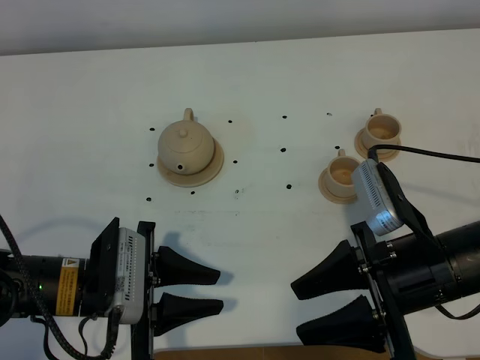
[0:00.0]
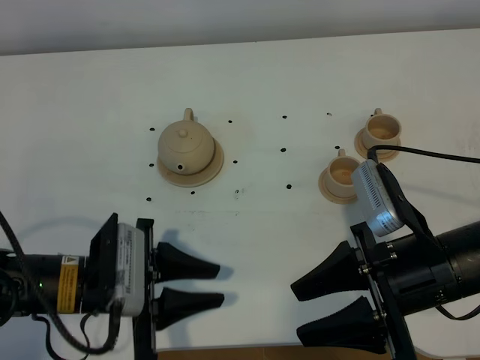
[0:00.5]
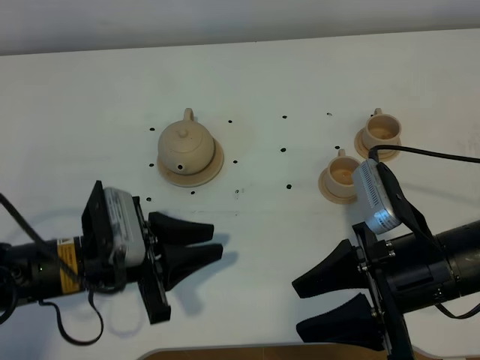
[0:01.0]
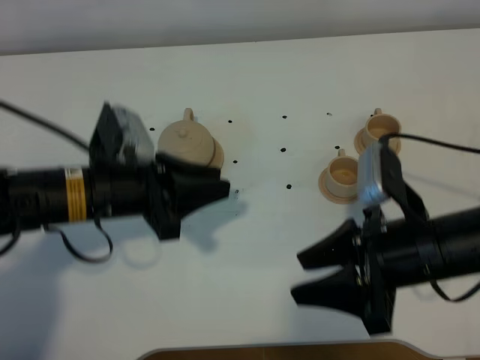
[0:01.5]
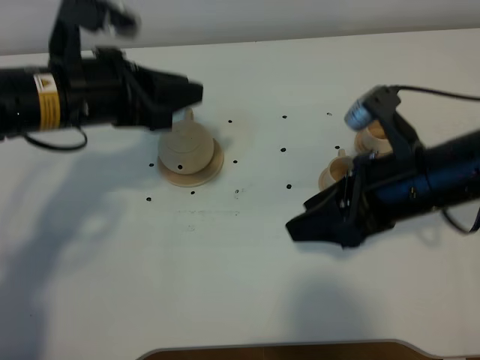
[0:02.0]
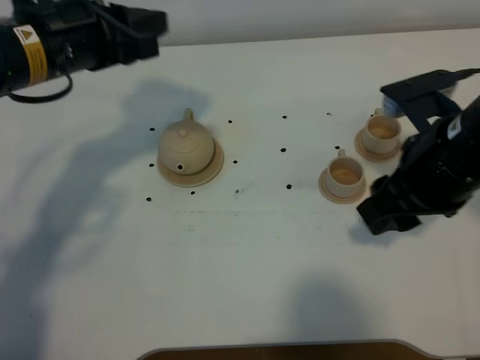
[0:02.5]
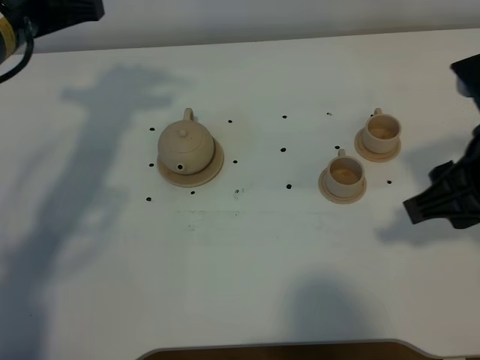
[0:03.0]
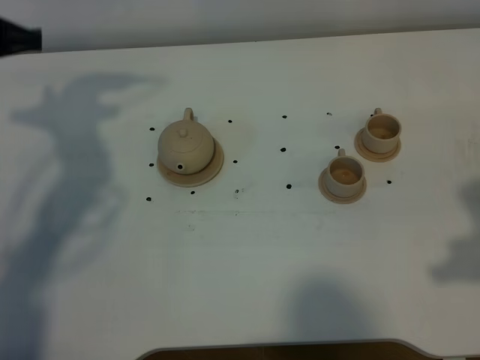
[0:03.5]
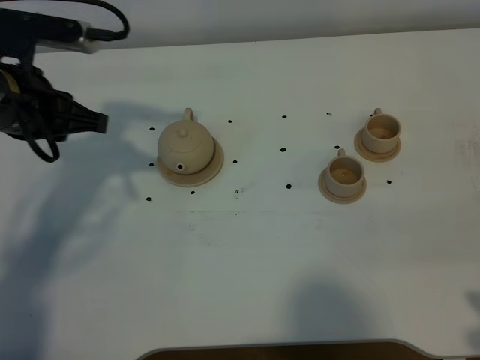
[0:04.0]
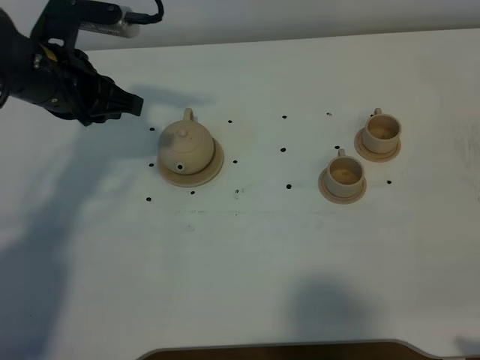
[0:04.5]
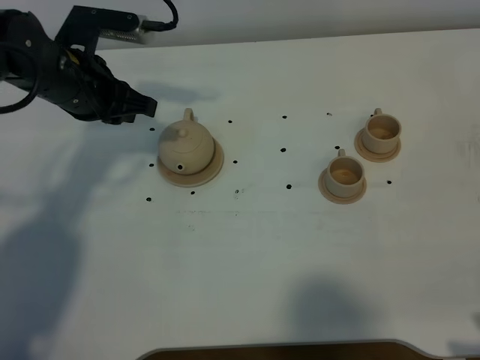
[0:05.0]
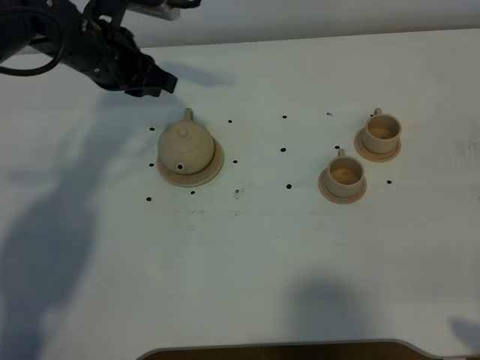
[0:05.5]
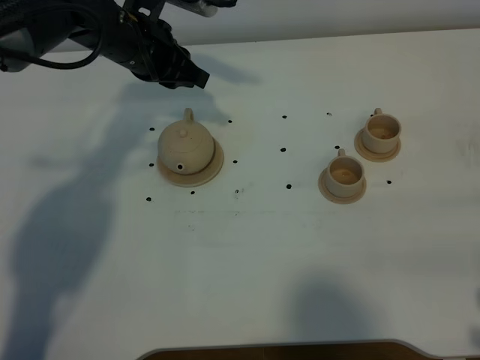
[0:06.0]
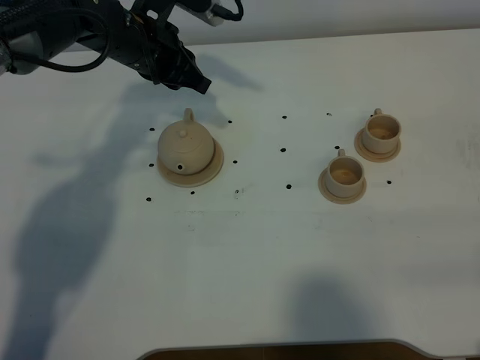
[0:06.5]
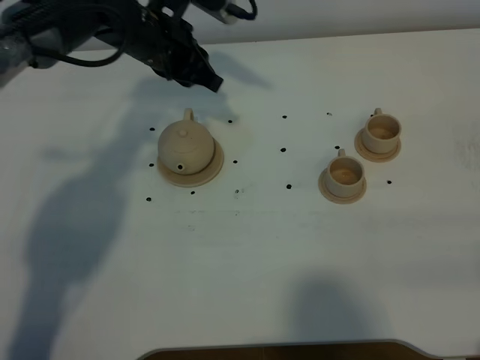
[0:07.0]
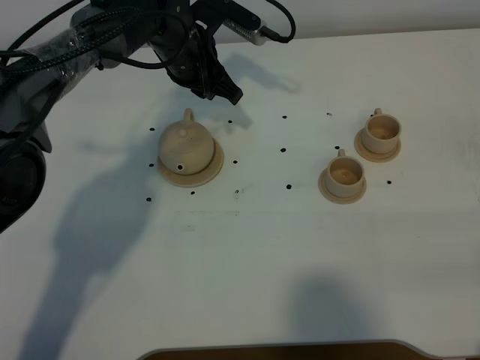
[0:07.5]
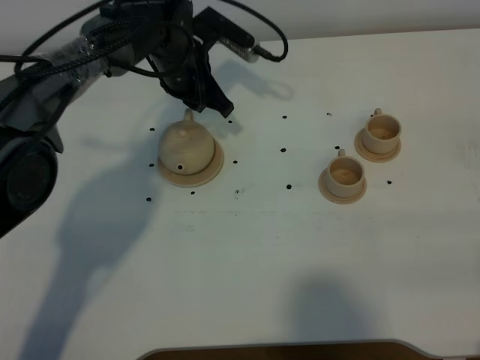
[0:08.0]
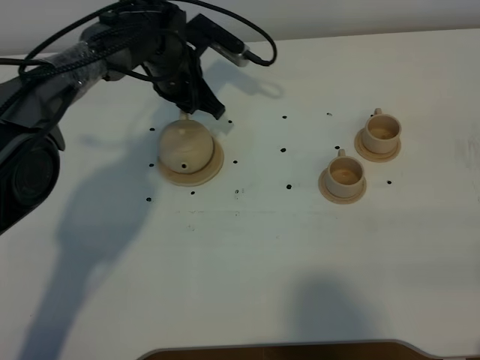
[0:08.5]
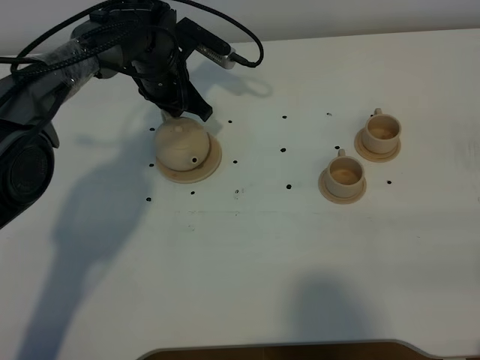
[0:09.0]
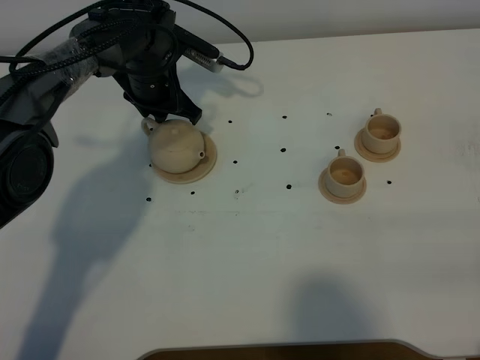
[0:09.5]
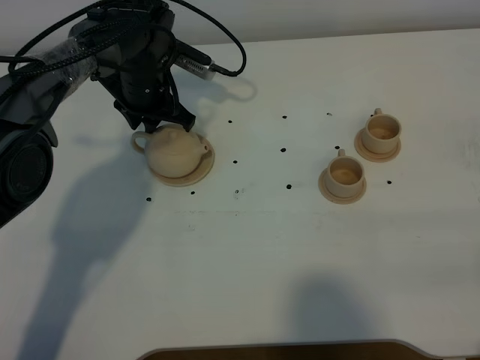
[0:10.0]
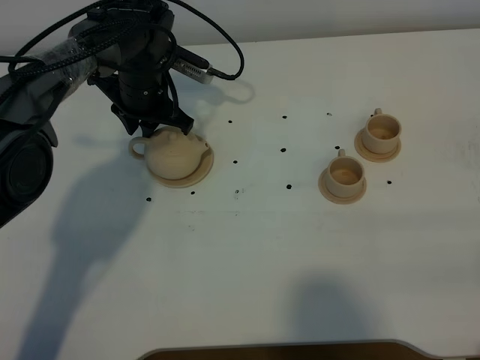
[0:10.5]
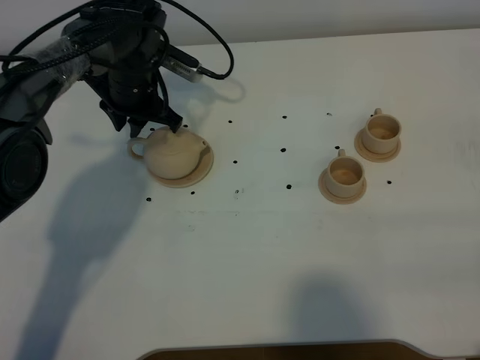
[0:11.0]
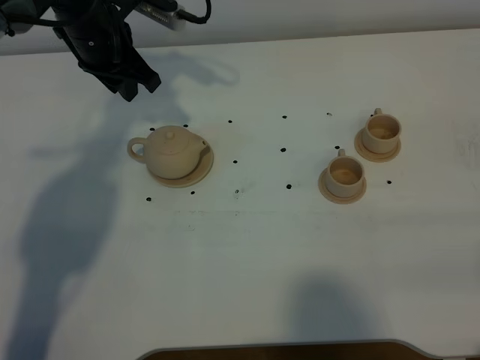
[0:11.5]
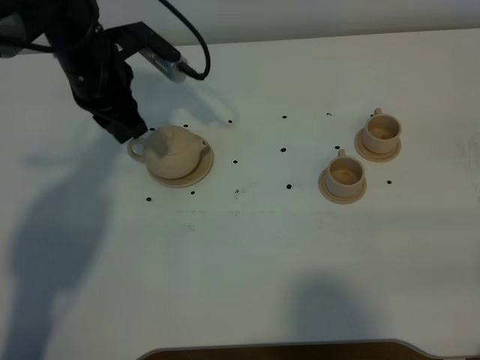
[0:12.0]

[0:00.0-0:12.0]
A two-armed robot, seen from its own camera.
Task of the whole recording: grasp the brown teapot and pour the tea into the two brown teacups one by one, put the brown teapot back in its original place.
0:00.0 to 0:02.0: The right gripper goes approximately 5 cm forward. The left gripper is displaced upward and forward by roughly 20 cm.
0:02.0 to 0:04.0: The right gripper goes approximately 20 cm backward and to the right. Meanwhile the left gripper goes about 5 cm to the left.
0:04.0 to 0:06.0: The left gripper shifts roughly 15 cm forward and to the right.
0:06.0 to 0:08.0: The left gripper shifts some 10 cm downward and to the right.
0:08.0 to 0:10.0: The left gripper shifts by some 5 cm.
0:10.0 to 0:12.0: The left gripper heads upward and backward, covering about 10 cm.

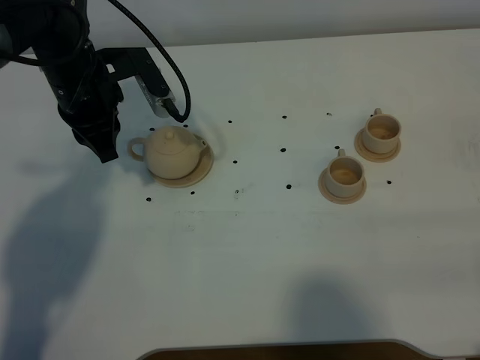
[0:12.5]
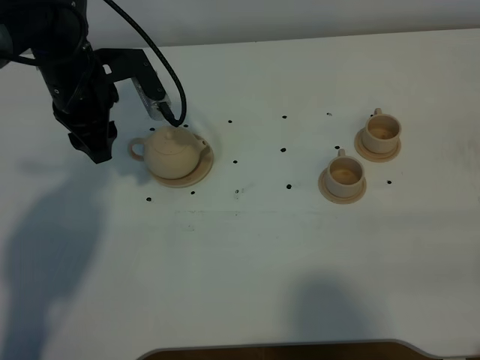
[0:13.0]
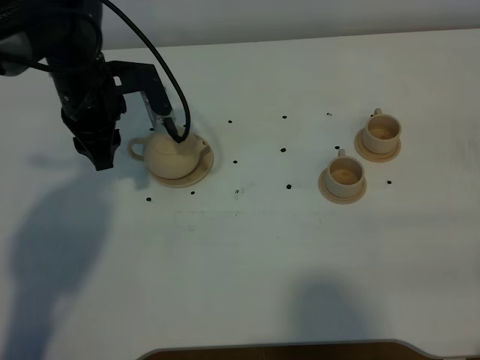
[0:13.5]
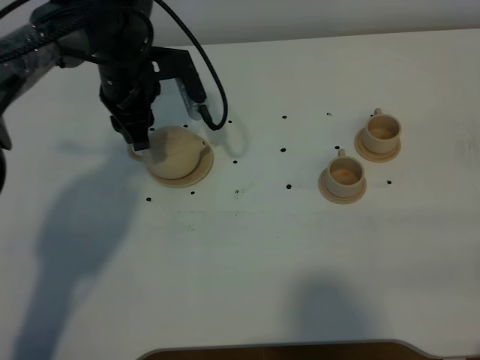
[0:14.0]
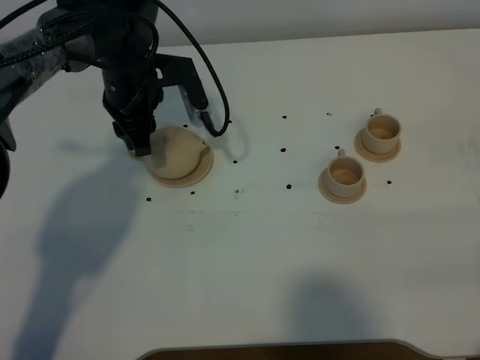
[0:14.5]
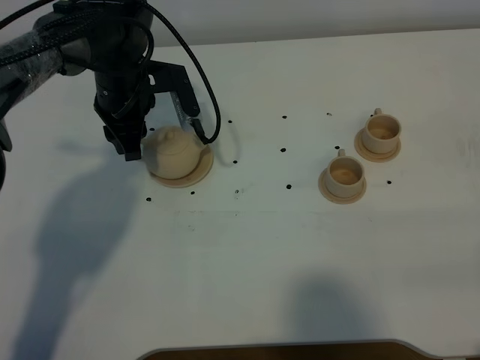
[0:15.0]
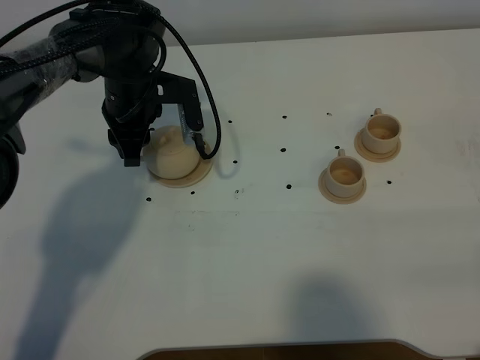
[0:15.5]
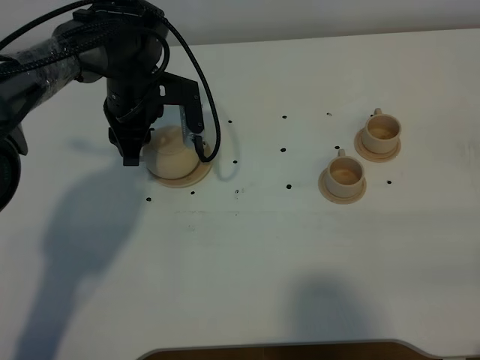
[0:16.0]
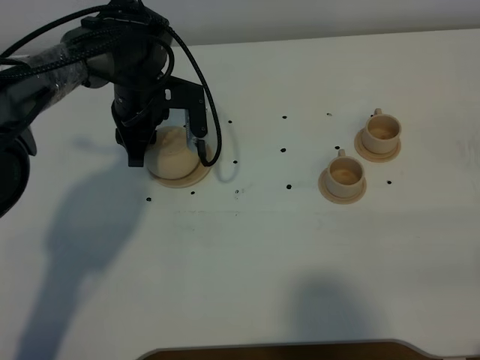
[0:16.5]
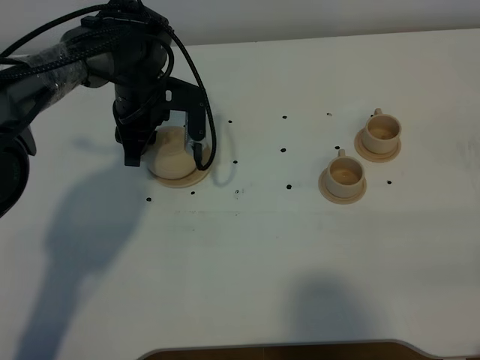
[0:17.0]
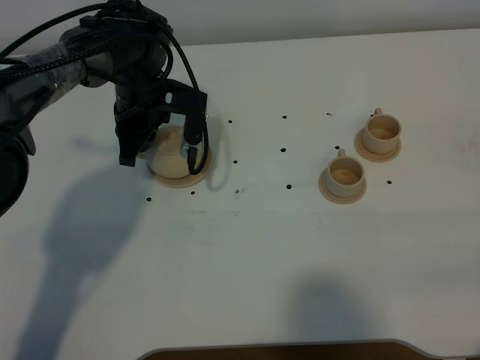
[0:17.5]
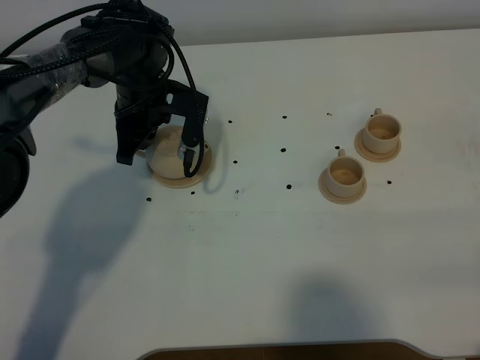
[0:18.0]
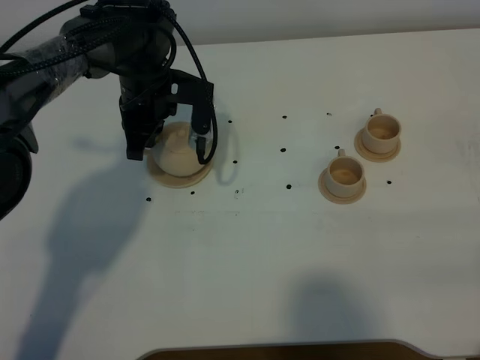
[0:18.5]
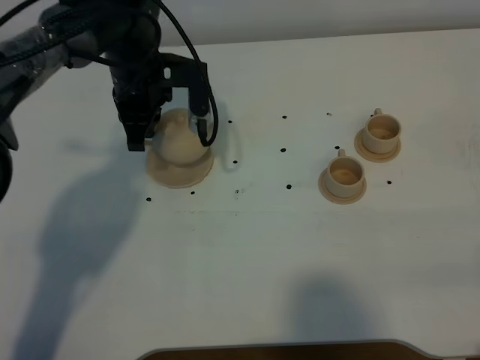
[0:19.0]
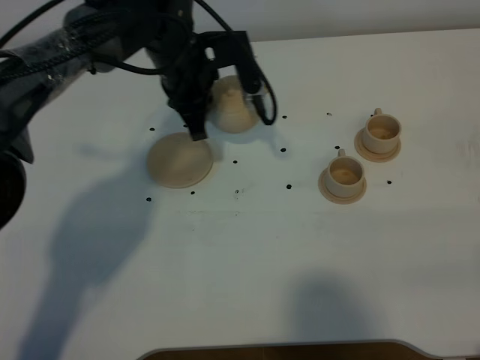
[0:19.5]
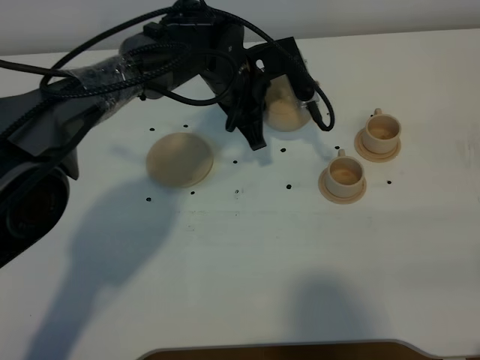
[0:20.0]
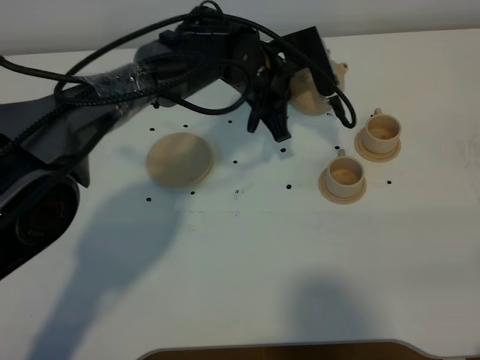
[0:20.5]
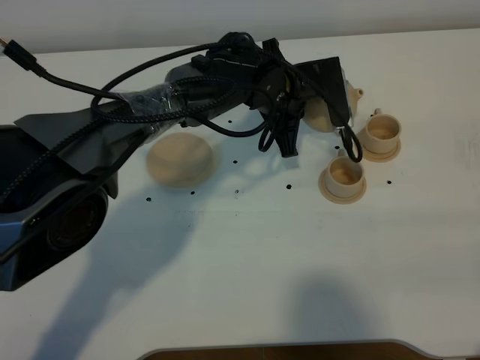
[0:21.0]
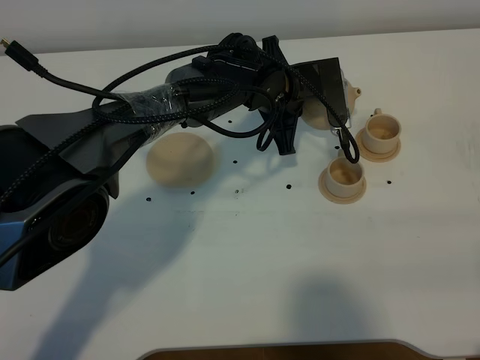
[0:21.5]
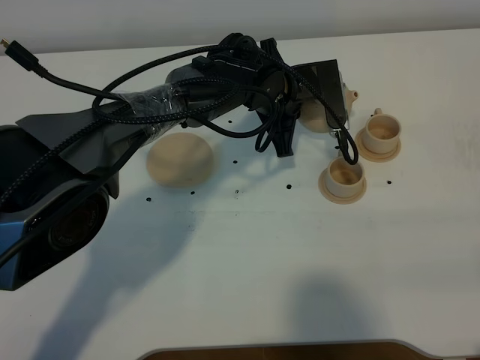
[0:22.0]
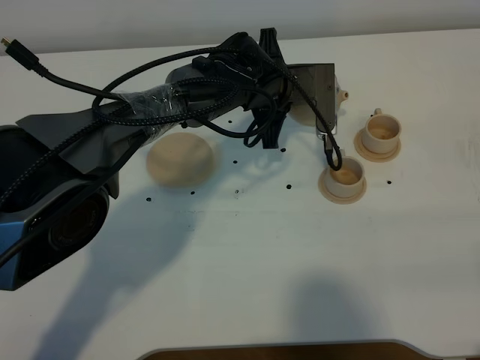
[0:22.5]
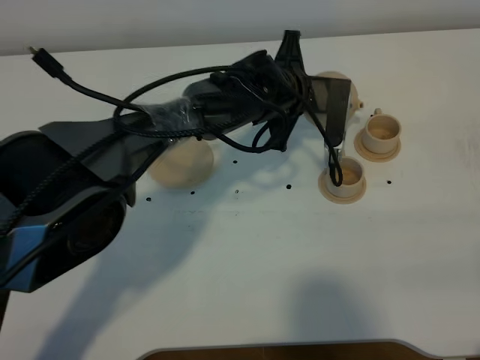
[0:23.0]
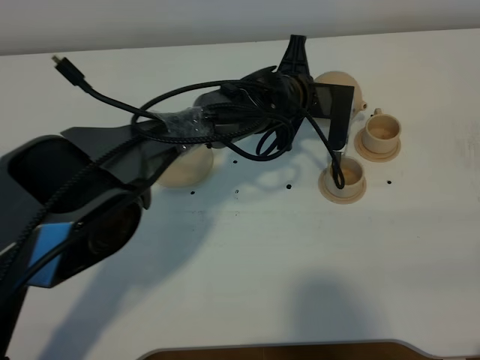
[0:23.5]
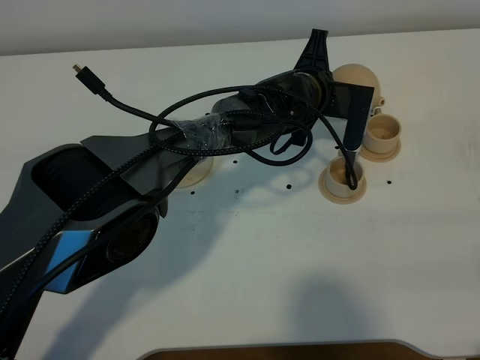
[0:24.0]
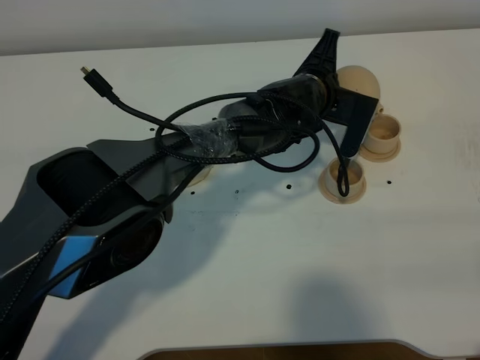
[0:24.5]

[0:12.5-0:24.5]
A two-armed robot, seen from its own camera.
Task of the whole recording: grasp the brown teapot and pour the tea into the two brown teacups one by one, put the brown teapot back in its original place.
Step, 0:12.5 to 0:18.5: Pick up the teapot with the left gripper.
0:12.5 to 0:14.5: The left gripper changes place by approximately 5 cm, and opens up.
0:14.5 to 0:16.5: There are only small adjustments of the grippers.
0:16.5 to 0:18.5: The left gripper closes its fingers.
0:18.5 to 0:20.5: The left gripper goes some 15 cm to the right.
0:22.5 to 0:24.5: The left gripper goes about 5 cm to the right.

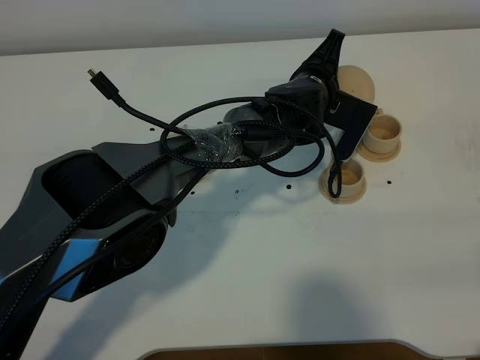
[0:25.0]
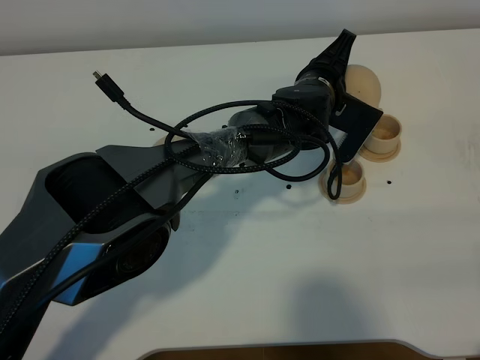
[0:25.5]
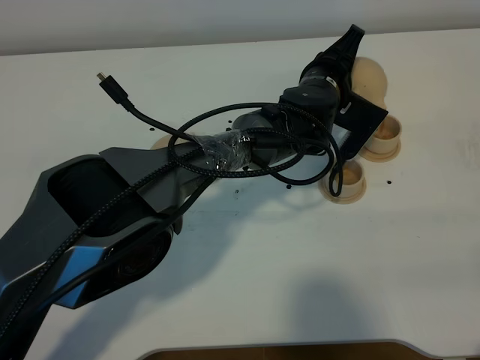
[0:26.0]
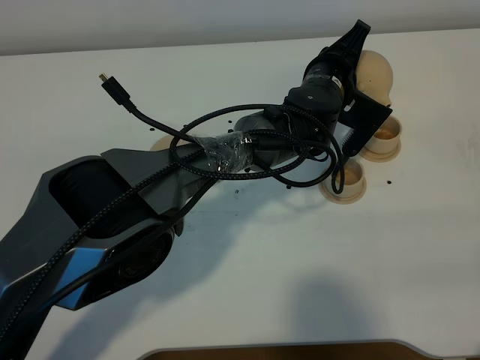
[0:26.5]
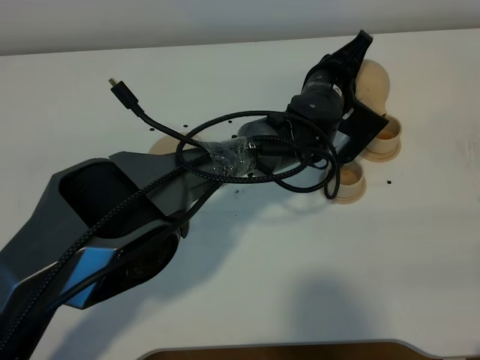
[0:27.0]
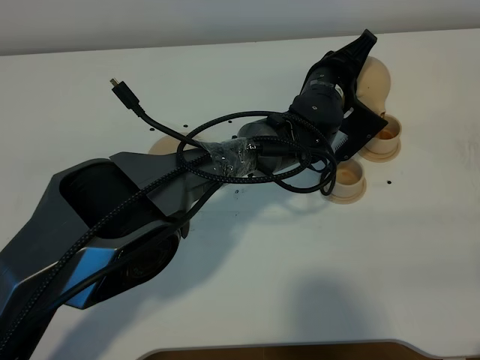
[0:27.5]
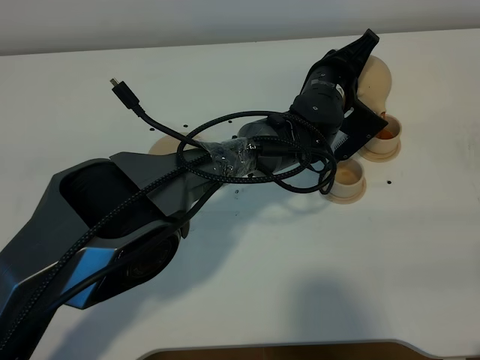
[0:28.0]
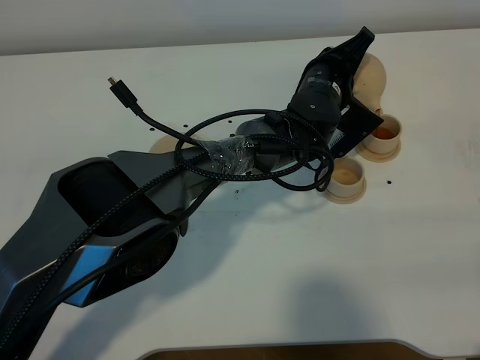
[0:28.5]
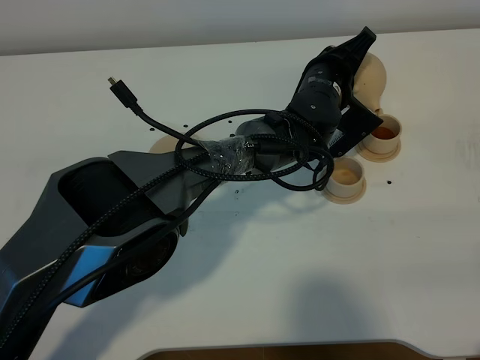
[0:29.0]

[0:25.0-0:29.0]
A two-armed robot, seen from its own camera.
Task of the whole recording: grasp the brown teapot and pour the tea into the two brown teacups one by one, put the brown teapot back in its original place.
0:25.0 to 0:27.0: The grippers stay close to where they were, moving slightly.
0:27.0 to 0:29.0: There are only small adjustments of the grippers.
